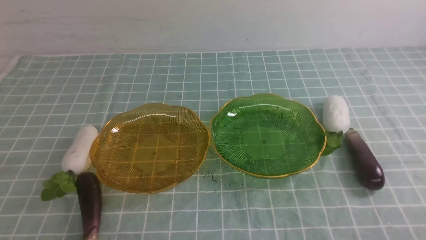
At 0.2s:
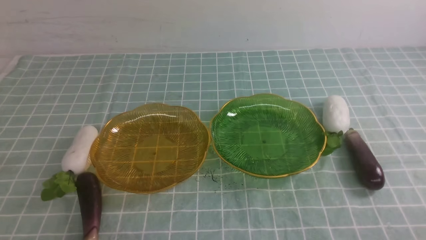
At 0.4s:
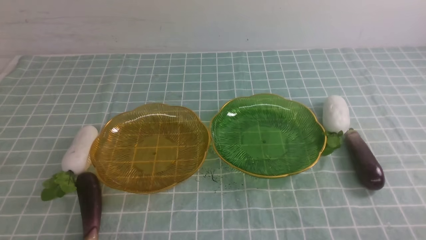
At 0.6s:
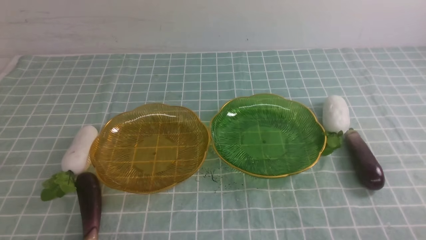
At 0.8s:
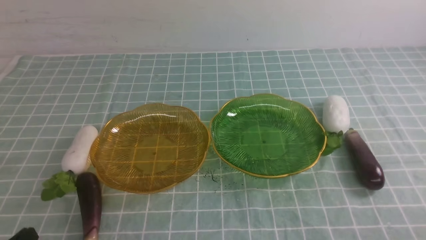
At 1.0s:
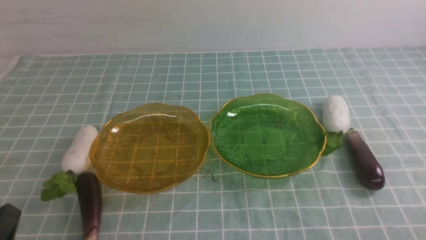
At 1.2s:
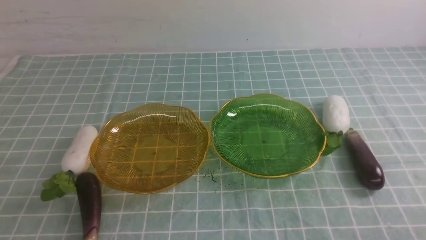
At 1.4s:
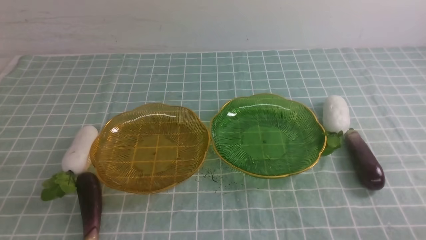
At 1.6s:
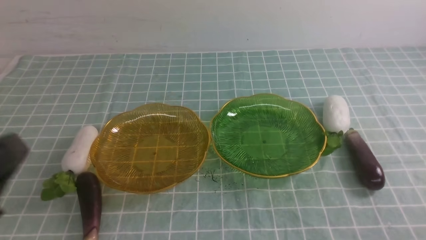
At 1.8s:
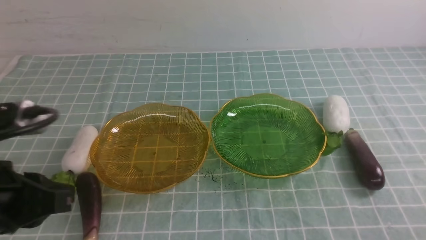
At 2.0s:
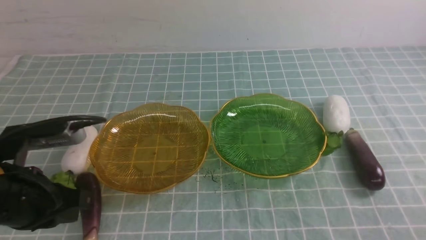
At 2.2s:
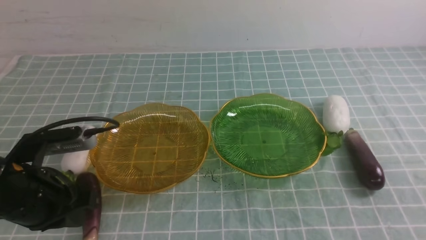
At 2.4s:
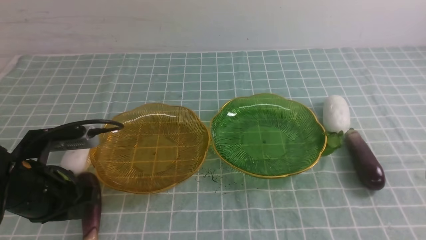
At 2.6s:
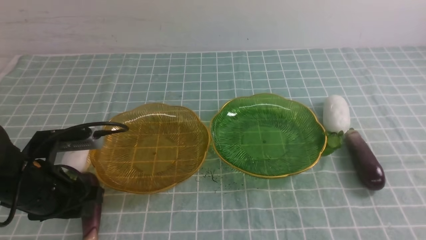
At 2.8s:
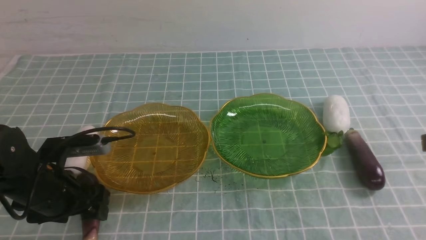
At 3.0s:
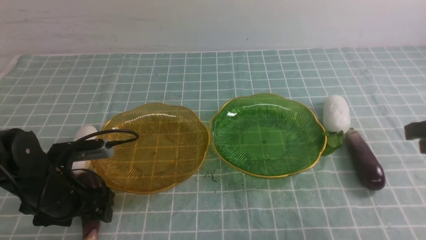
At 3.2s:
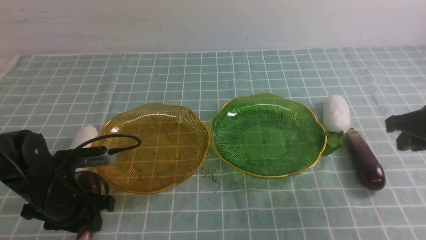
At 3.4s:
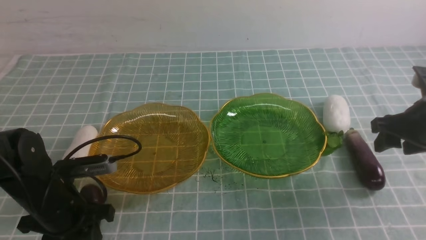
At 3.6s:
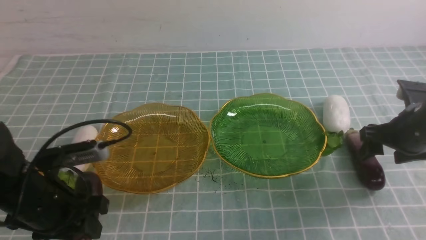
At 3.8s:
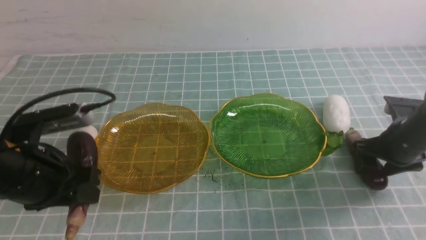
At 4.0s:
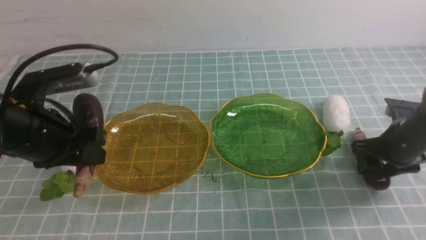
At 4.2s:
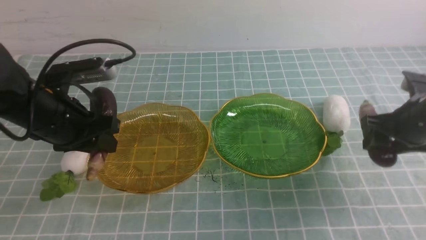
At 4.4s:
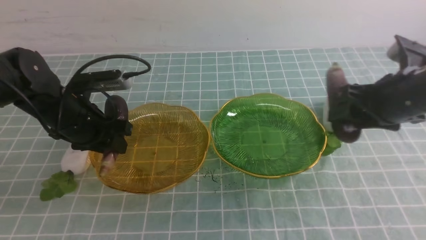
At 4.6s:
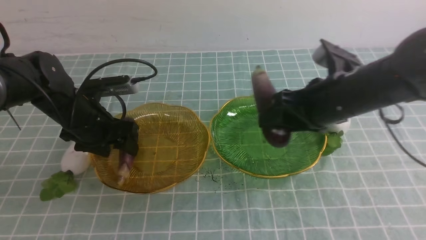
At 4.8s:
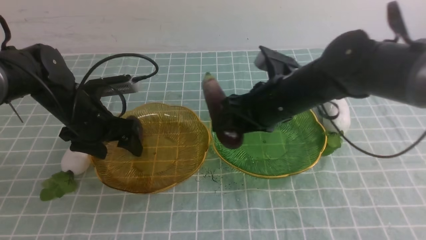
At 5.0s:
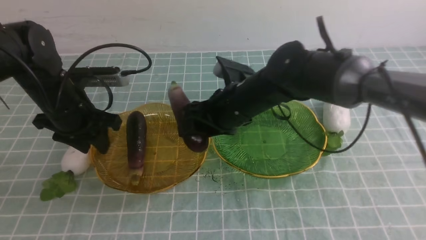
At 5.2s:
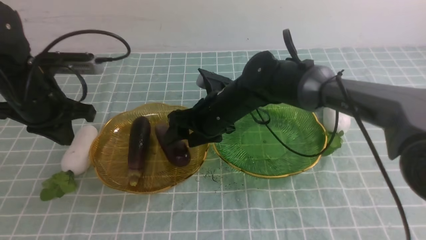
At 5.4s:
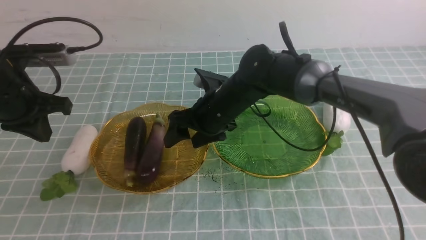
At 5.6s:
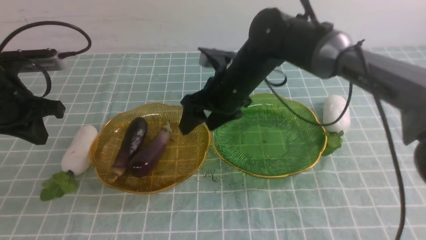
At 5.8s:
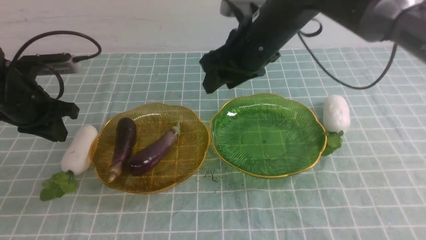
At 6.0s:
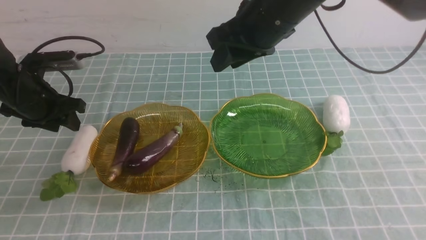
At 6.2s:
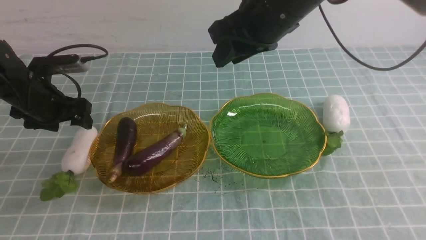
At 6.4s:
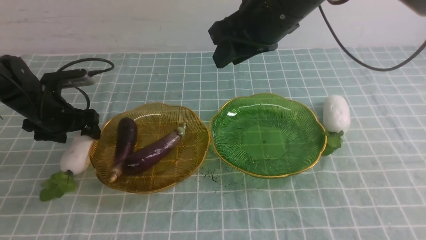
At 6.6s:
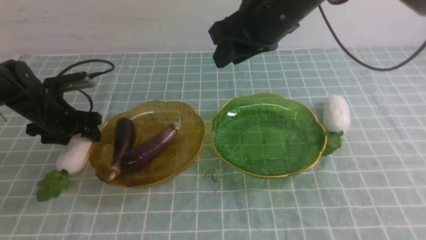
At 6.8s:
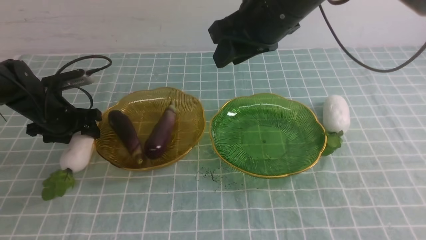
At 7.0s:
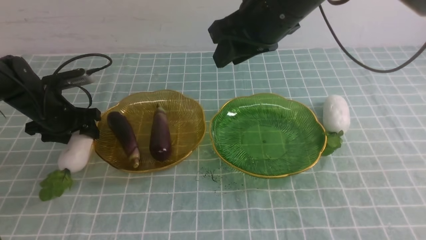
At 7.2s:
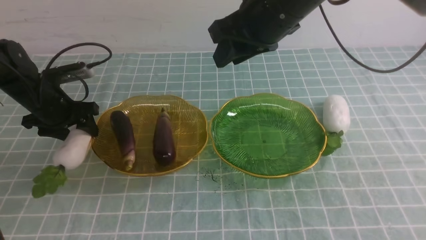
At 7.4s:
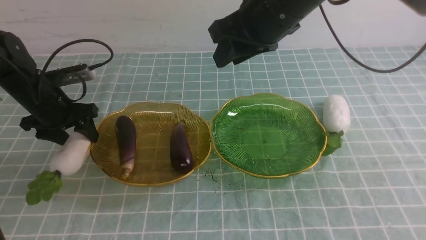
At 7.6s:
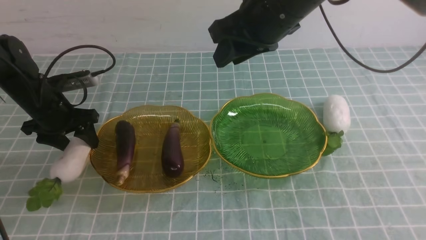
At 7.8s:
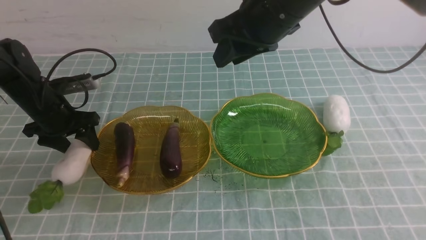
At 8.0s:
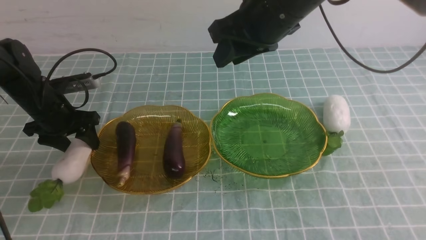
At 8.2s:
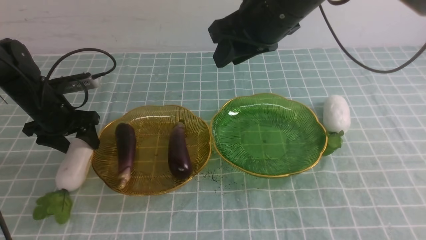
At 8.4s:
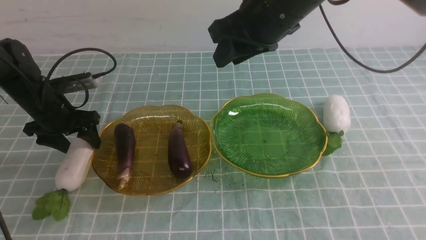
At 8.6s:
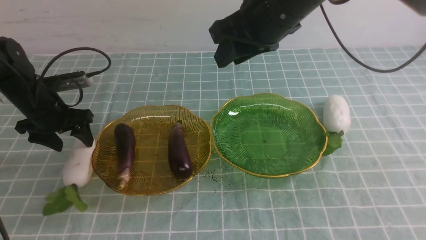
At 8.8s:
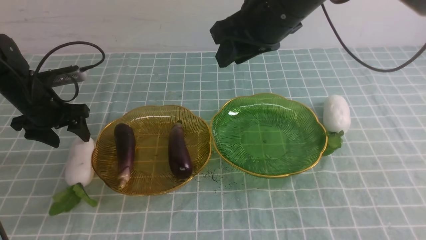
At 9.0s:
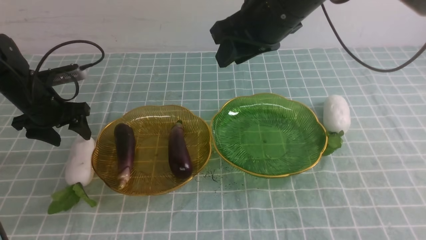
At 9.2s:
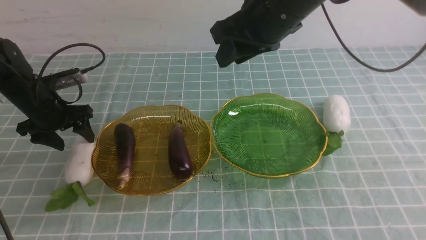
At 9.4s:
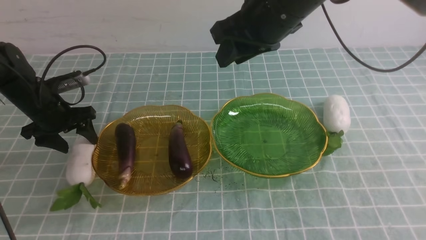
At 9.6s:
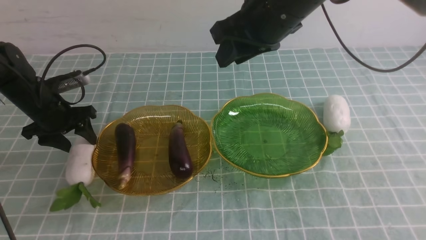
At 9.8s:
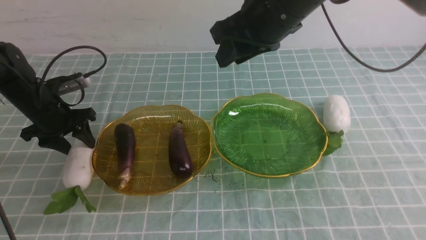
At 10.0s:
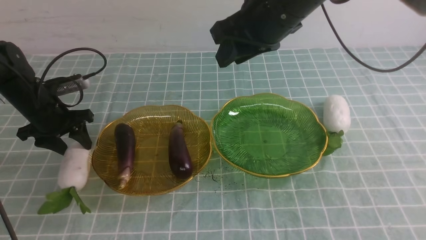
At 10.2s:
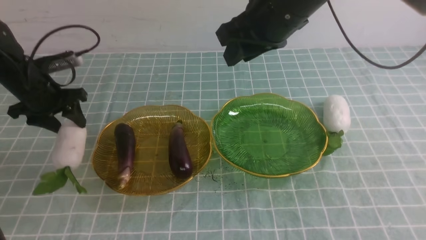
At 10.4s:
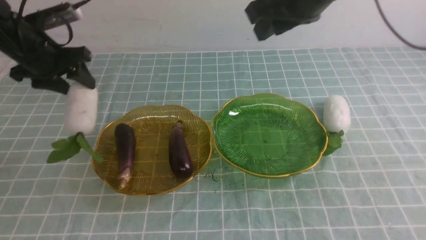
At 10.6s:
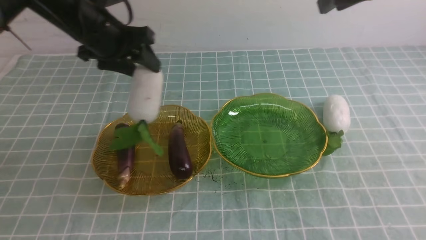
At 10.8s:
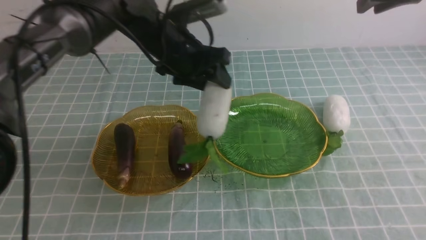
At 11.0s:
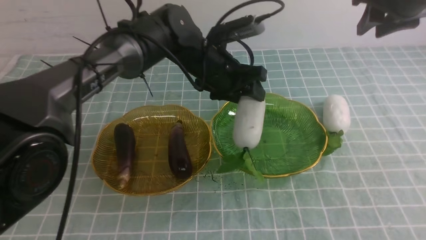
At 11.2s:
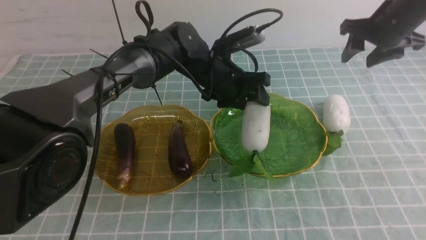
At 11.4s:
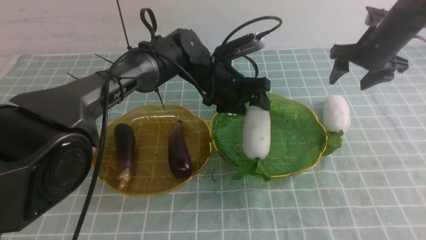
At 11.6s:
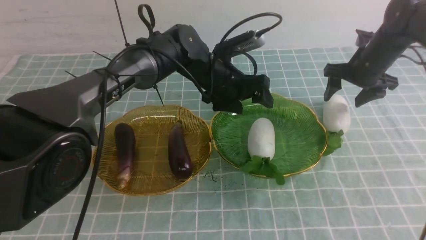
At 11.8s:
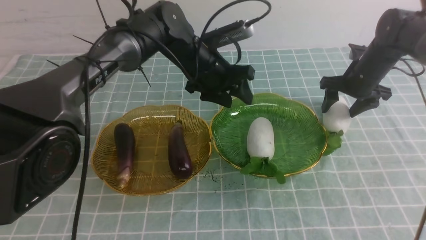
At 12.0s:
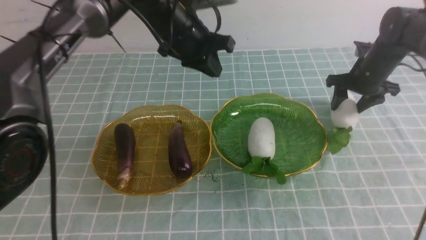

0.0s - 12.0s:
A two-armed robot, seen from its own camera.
Step, 0.0s - 3.6s: use the left arm to grab an eggplant and put it into the left plate.
Step, 3.8s - 5.2s: use the right arm to grab an eggplant and put it into the left plate.
Step, 5.4s - 11.6s: use the left arm to grab a radish and put it into the right plate.
0.0s - 1.6s: The left gripper goes about 15 cm upward.
1.6s - 3.0s: The left gripper is displaced forward and downward by some 25 cm, and opens up.
3.0s - 4.4s: The right gripper travels to the left and forward by some 10 cm, travels downward and back again, roughly 10 cm each way, and opens. Meanwhile the left gripper goes some 10 cm forward and upward.
4.4s - 6.0s: The right gripper travels to the left and upward by roughly 20 cm, while the left gripper is displaced to the left by approximately 10 cm, and closes and opens again.
6.0s - 9.0s: The grippers make only small movements.
9.0s - 10.4s: The left gripper travels upward and to the right by roughly 10 cm, while the right gripper moves to the right, approximately 5 cm.
10.4s - 12.0s: The left gripper travels to the right by roughly 20 cm, and closes up. The right gripper shifts some 25 cm downward, to the right and forward, and opens its fingers.

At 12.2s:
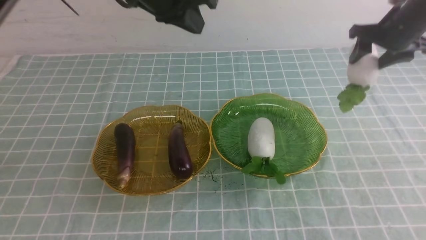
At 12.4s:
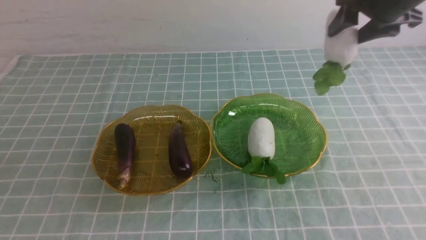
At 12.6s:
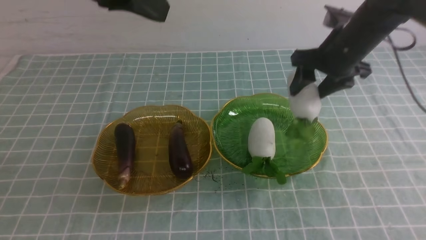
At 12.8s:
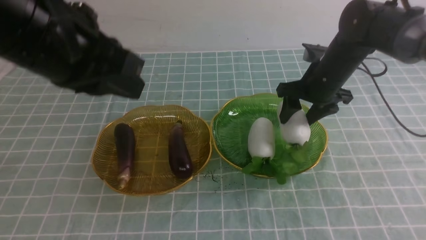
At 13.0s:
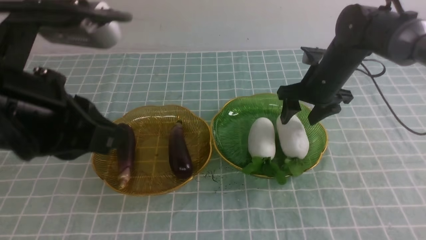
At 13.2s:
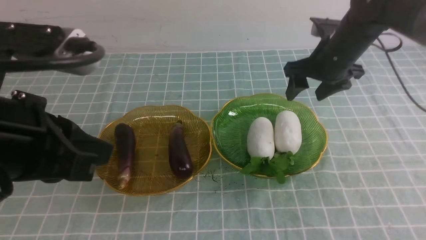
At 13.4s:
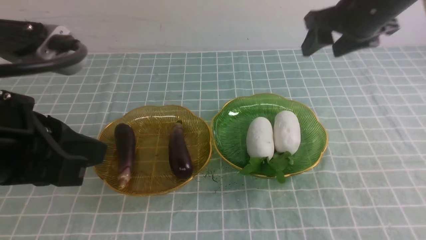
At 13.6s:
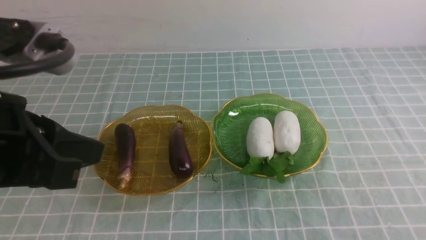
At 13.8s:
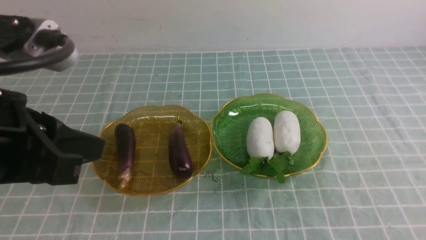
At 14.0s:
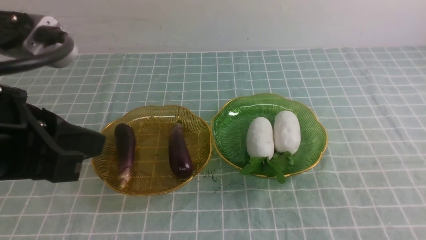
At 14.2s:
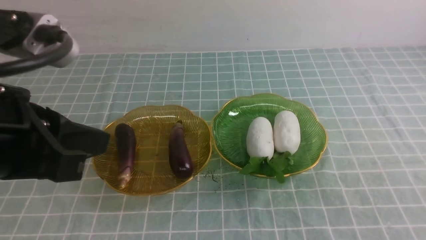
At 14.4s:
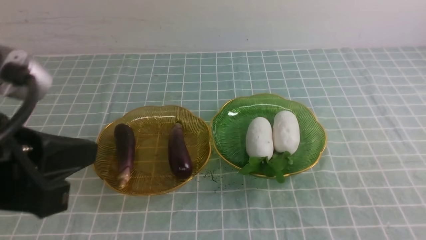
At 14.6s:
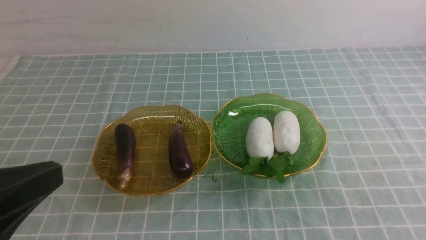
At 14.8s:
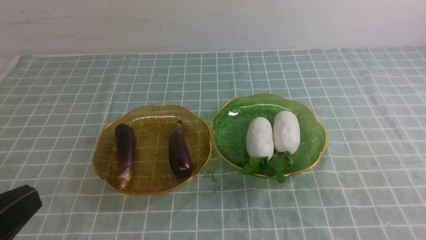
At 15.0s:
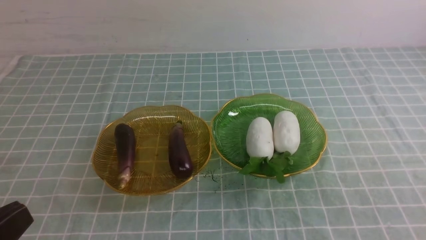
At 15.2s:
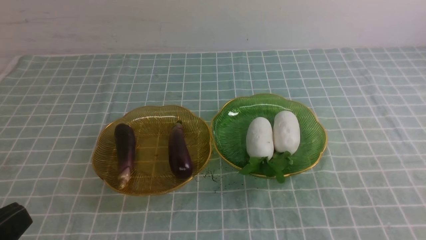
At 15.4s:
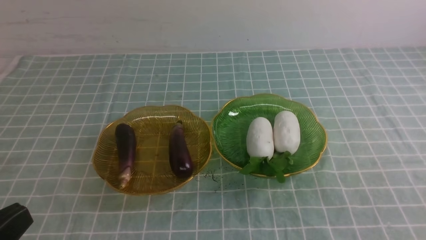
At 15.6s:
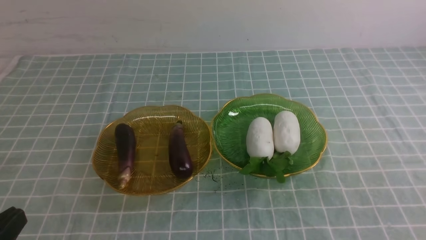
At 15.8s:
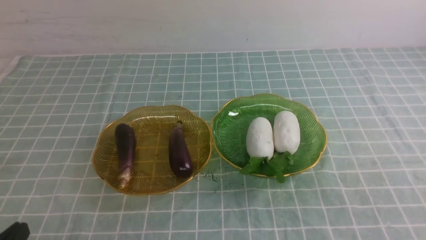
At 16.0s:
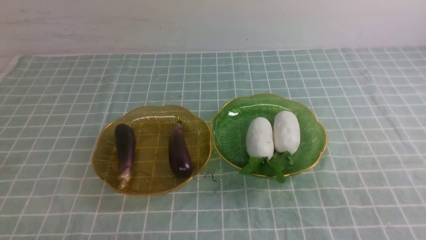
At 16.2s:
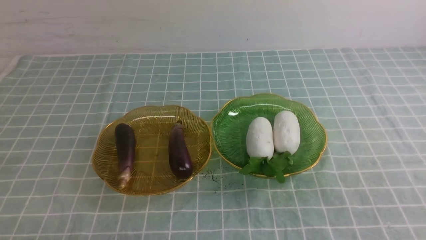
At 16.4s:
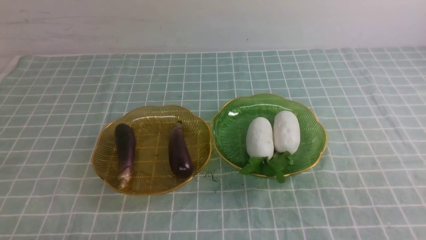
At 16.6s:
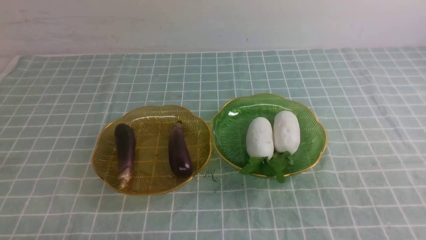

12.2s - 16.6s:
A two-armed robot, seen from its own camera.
Step, 12.2s - 12.8s: use the right arm to grab a radish and put it into the right plate.
12.2s - 13.6s: The left gripper travels backward by roughly 25 cm, while the right gripper goes about 35 cm backward and upward, and closes its fingers.
13.6s - 15.2s: The left gripper travels backward, downward and to the left by some 15 cm; the right gripper goes approximately 25 cm backward and downward, and closes.
15.2s - 16.6s: The left gripper shifts roughly 15 cm downward.
